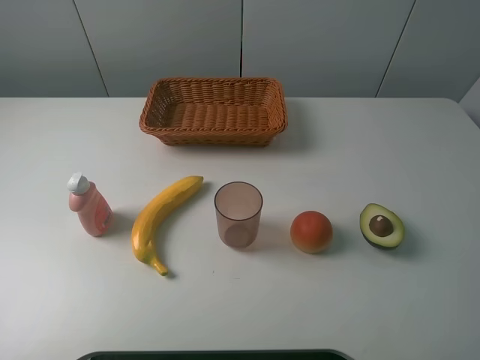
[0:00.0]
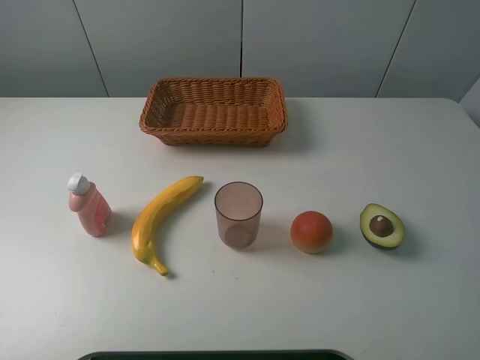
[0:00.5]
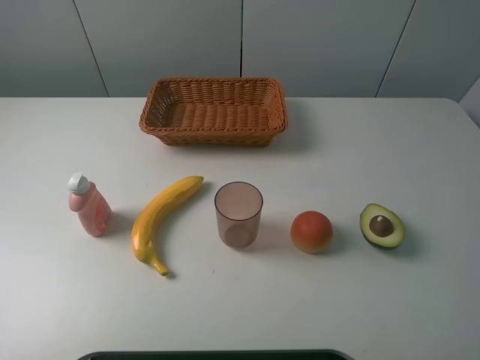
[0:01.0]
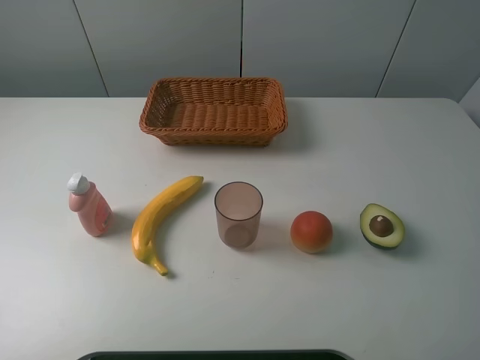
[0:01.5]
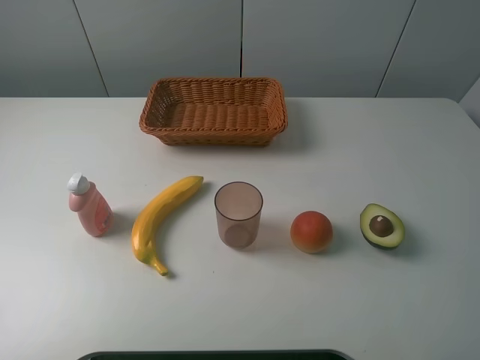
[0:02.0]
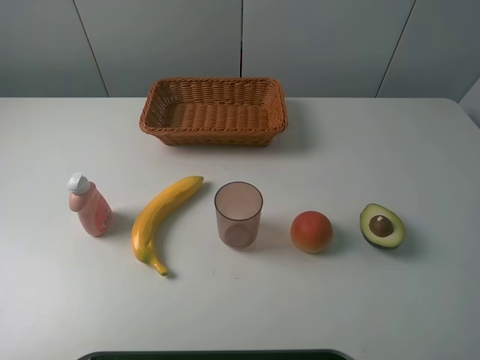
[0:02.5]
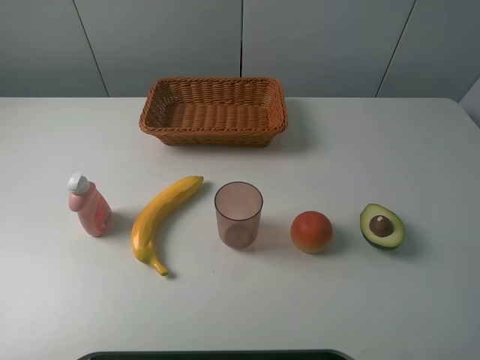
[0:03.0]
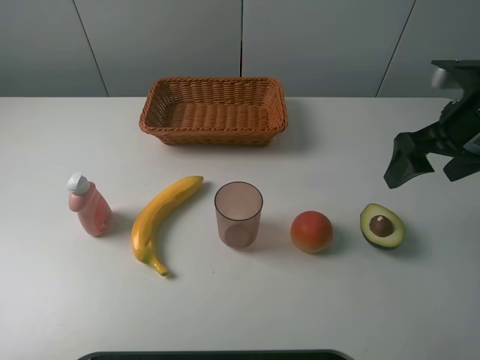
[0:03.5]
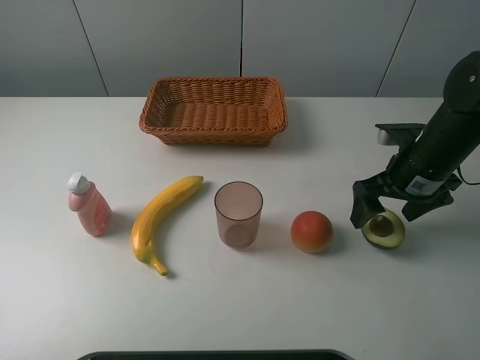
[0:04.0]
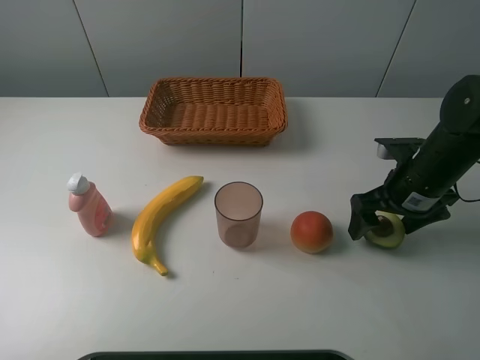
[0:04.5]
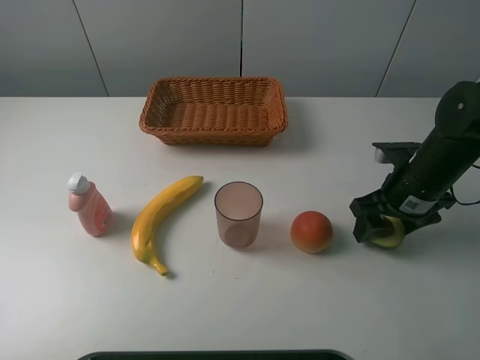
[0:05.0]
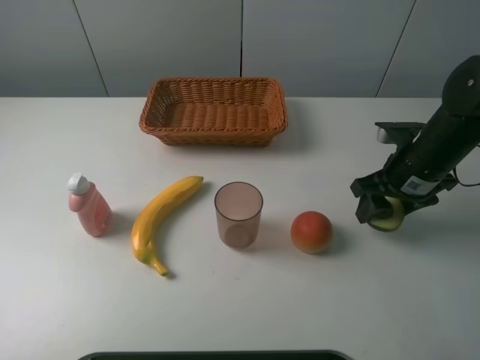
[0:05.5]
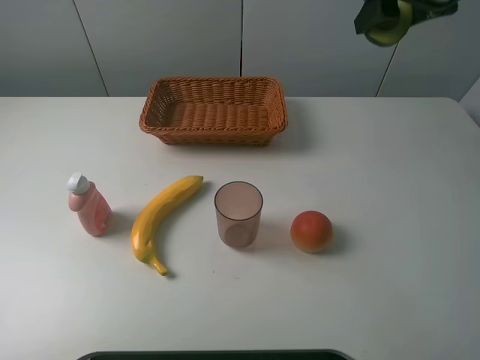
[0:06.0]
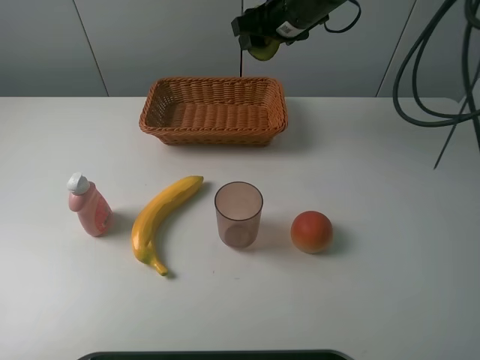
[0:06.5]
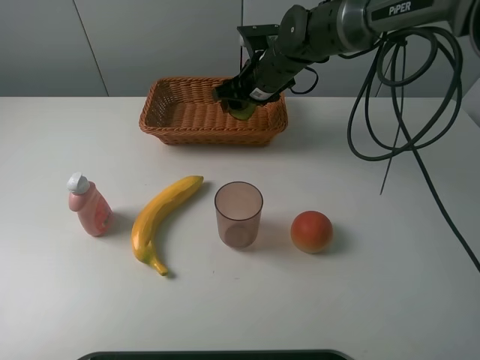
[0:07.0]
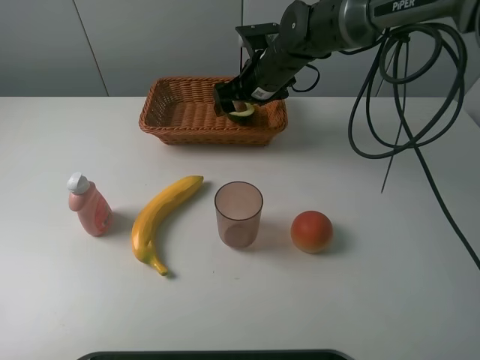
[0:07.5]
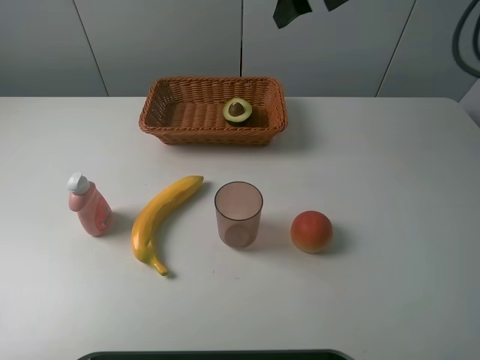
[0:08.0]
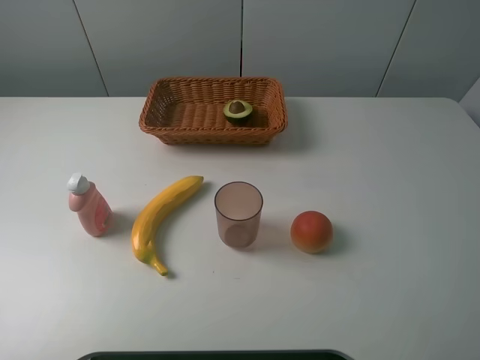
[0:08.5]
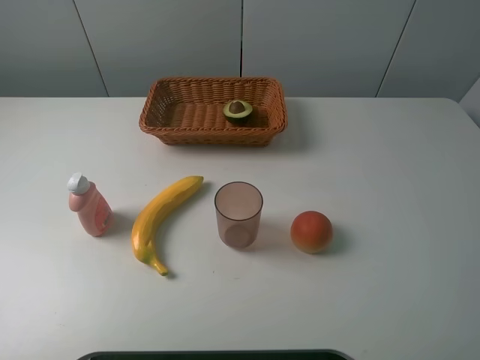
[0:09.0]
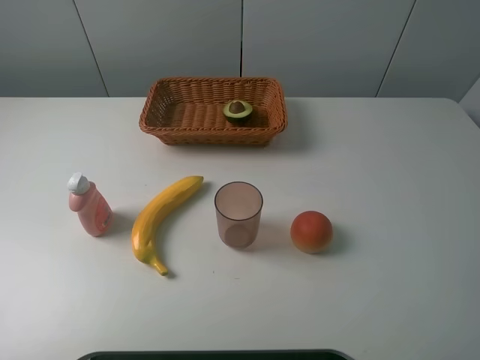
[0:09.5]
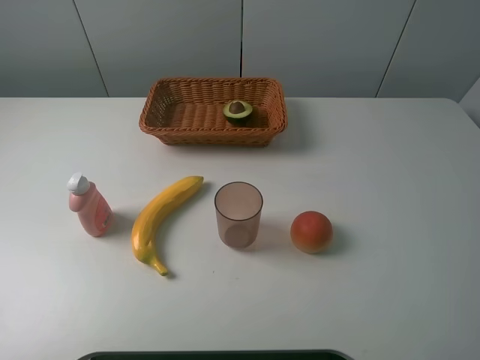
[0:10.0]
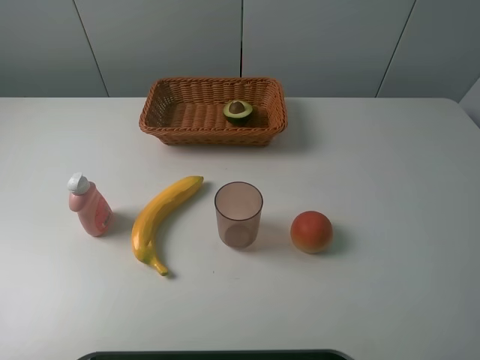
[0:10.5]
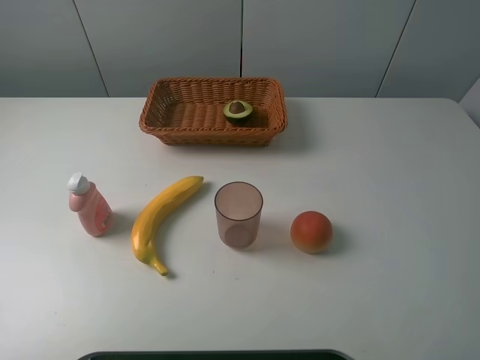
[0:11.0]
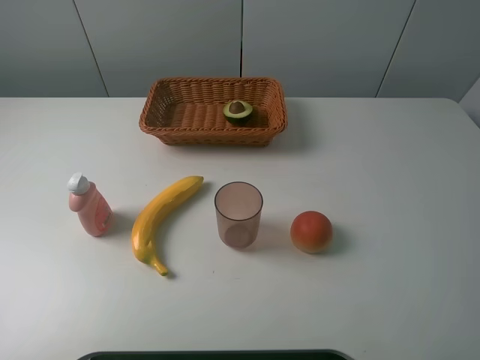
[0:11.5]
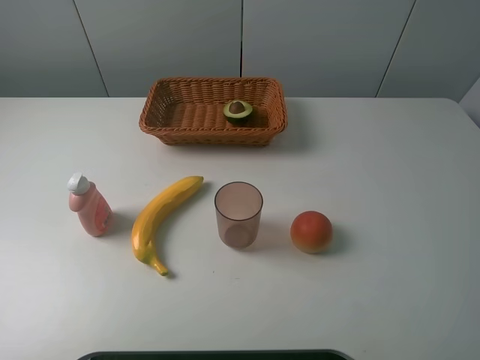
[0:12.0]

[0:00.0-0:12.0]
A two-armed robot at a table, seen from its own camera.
Task of the whole recording: randomly pick up an item from the table and put it in the basket.
Step, 0:00.0 to 0:05.0: Grasp the avocado with the right gripper.
Step, 0:05.5 to 0:07.5: Place the avocado into the basket with the right gripper.
0:02.0 to 0:04.0: The right gripper goes some 30 cm forward and downward.
0:04.0 to 0:06.0: The right gripper goes approximately 15 cm upward and forward, and closes.
0:06.0 to 0:08.0: The right gripper is displaced to the left and forward by about 15 cm, and opens up.
0:08.0 to 0:10.0: The right gripper heads backward, covering some 40 cm.
